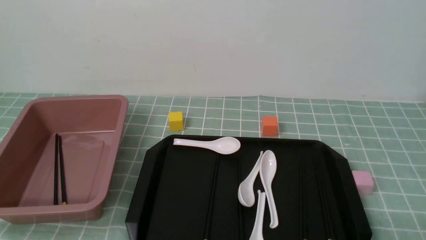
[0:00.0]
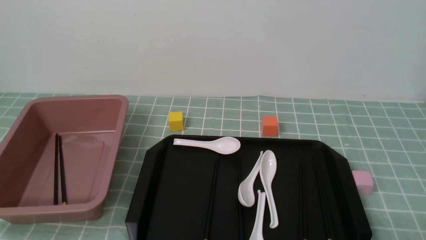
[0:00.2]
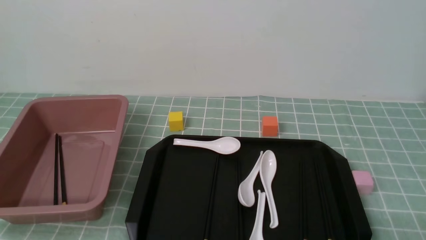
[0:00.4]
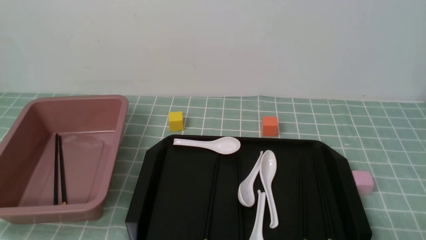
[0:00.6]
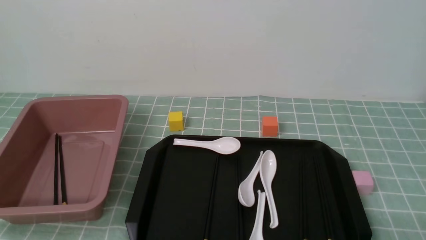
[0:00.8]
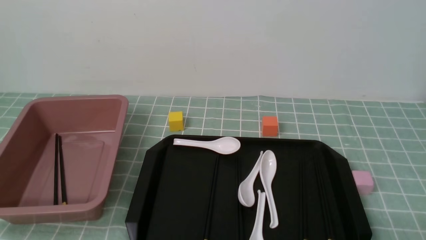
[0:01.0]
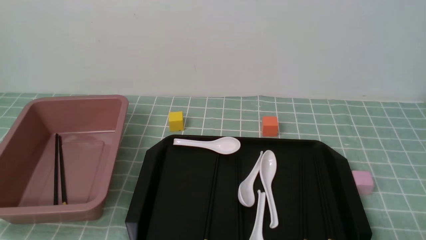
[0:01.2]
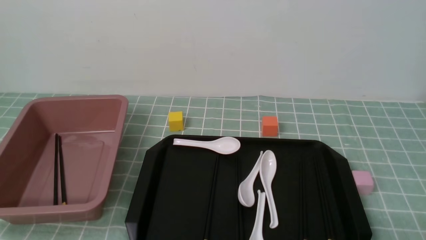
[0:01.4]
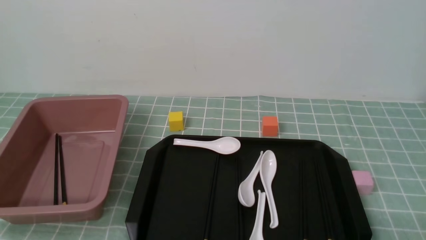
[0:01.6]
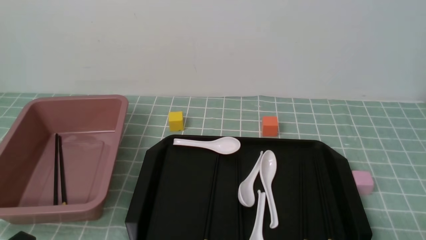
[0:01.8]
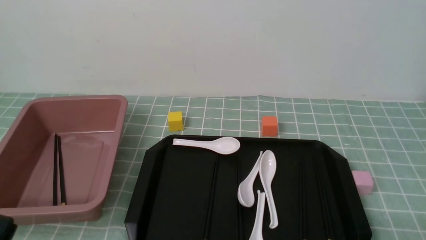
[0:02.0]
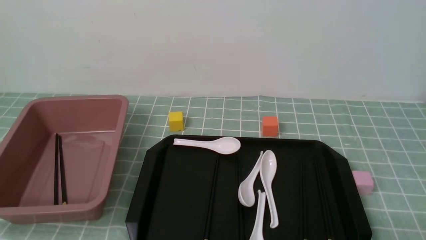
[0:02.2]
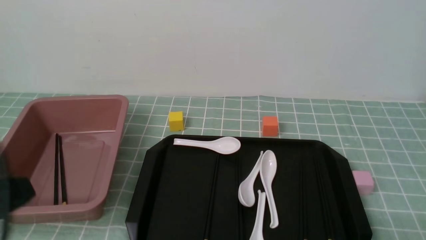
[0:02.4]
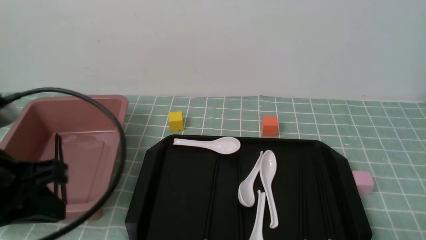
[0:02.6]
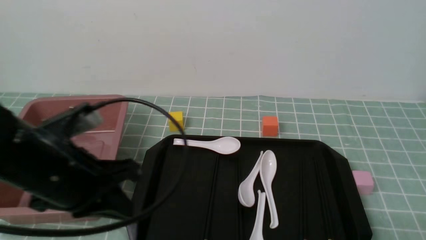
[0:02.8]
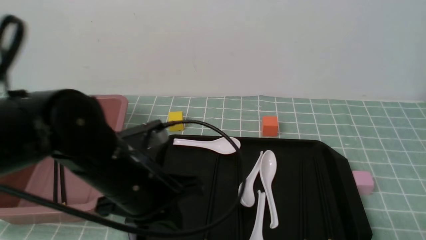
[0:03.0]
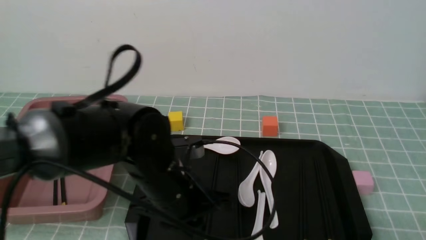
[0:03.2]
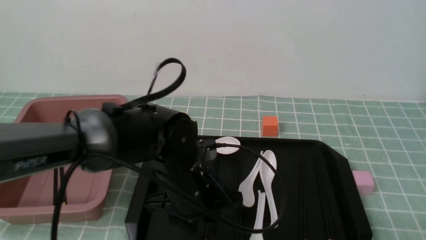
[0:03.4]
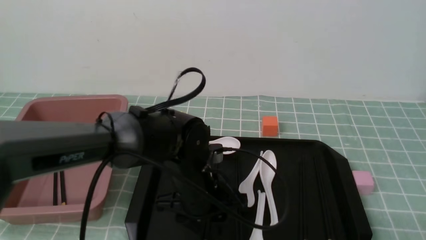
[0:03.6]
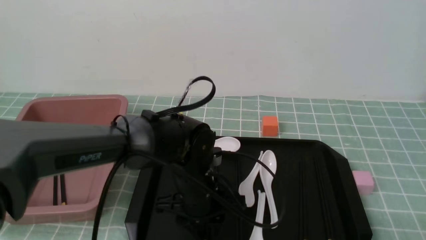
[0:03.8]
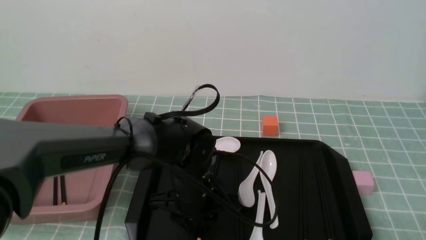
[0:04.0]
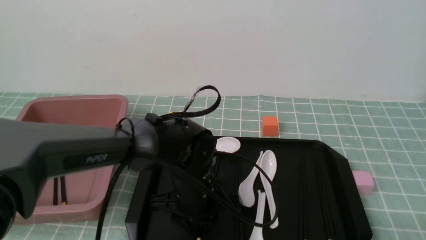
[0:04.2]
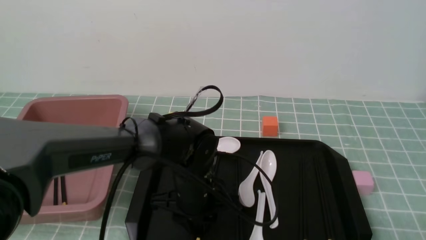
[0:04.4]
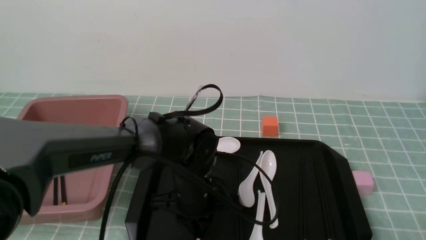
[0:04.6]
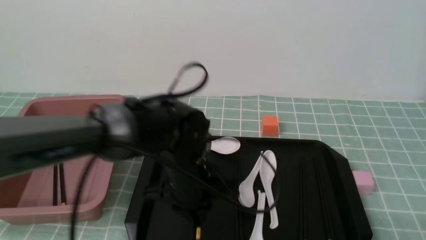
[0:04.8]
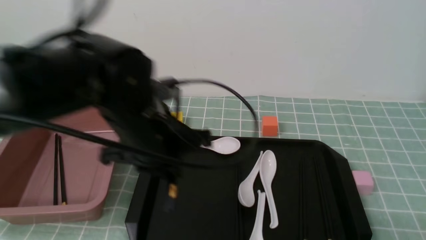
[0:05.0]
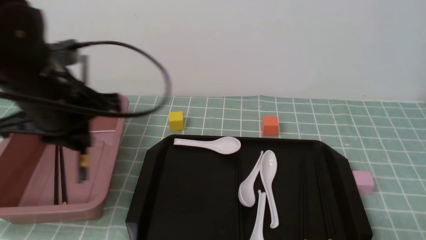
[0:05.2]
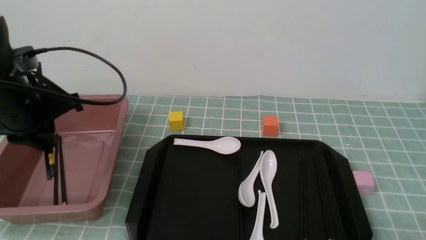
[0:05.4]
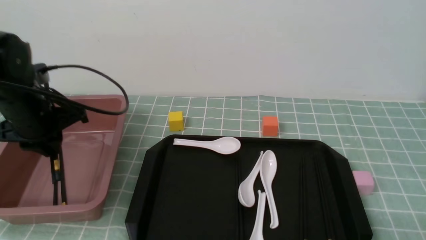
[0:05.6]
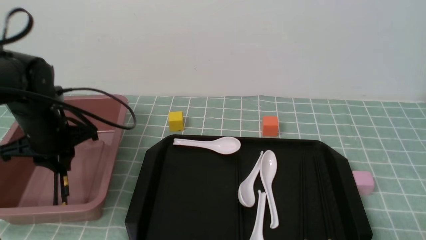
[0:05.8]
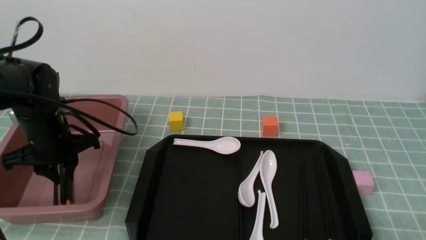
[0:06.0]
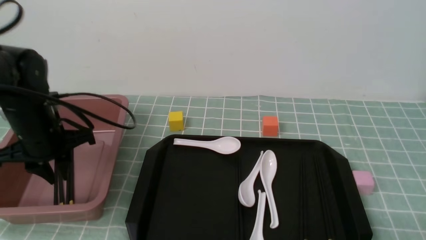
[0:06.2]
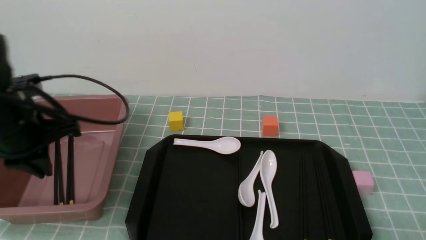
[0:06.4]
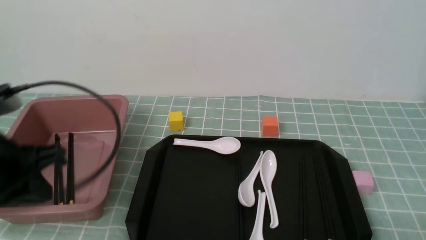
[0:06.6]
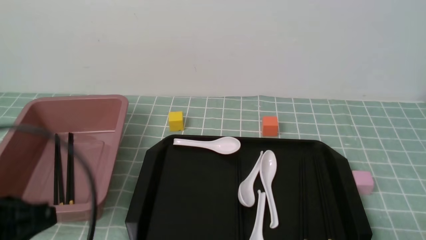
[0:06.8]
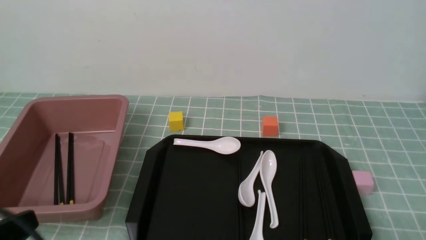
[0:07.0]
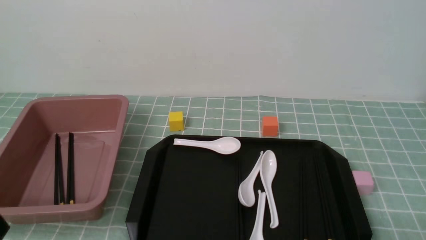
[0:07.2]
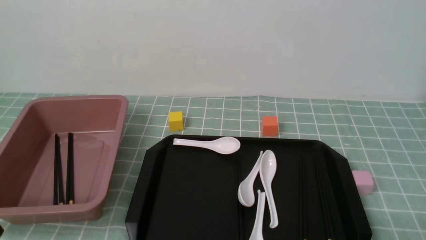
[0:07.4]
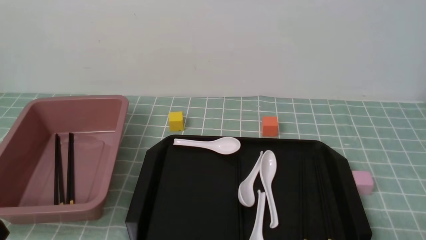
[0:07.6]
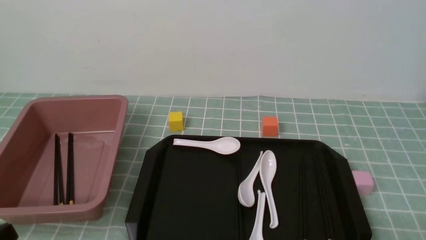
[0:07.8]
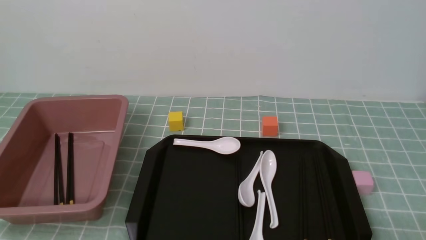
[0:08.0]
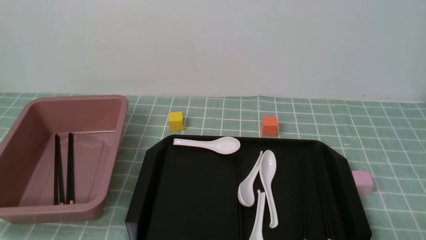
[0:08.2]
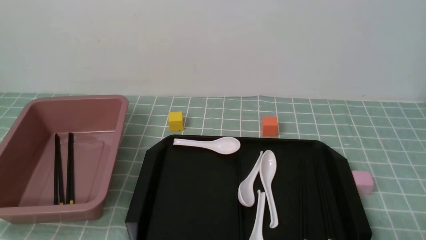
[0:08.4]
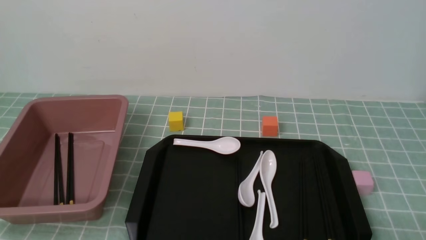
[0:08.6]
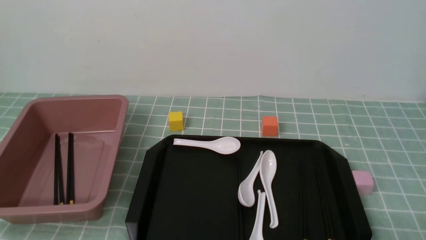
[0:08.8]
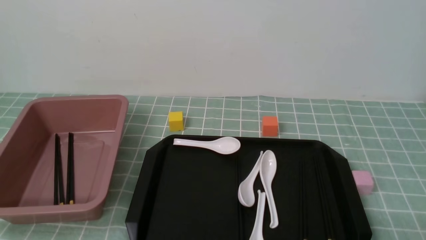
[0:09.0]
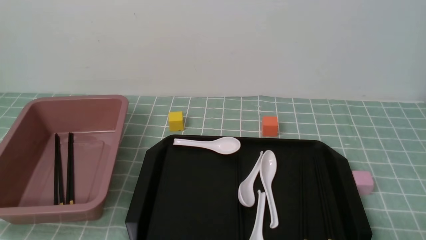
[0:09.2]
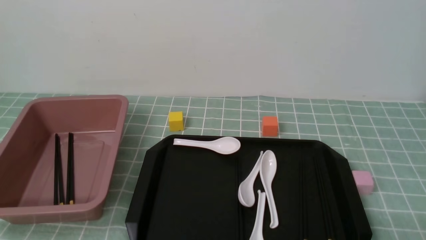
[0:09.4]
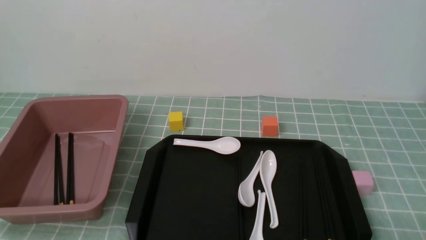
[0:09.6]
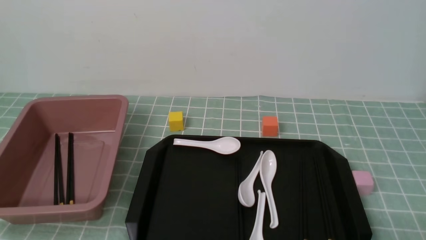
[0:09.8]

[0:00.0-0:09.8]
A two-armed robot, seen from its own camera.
Step, 0:00.0 to 0:04.8: use the left arm to grab a pair of chopsticks.
Step, 0:05.0 to 0:06.2: use the left arm to put the chopsticks into the lunch box.
0:00.0 to 0:01.4: The two grippers keep their place.
0:01.4 to 0:02.8: The left gripper is displaced forward, upward and to the right by about 20 cm.
0:02.8 to 0:04.2: The left gripper travels to the right, downward and forward by approximately 20 cm, and opens its fingers.
0:04.2 to 0:05.6: The left gripper heads to the left and upward, covering approximately 25 cm, and closes.
0:05.6 to 0:07.0: The left gripper goes approximately 25 cm backward, and closes up.
0:07.0 to 0:08.4: The left gripper is displaced downward by about 10 cm.
0:08.4 to 0:09.8: The two grippers keep their place.

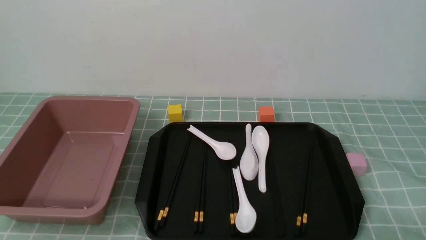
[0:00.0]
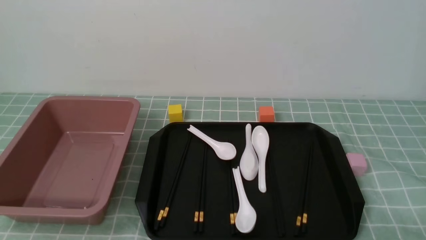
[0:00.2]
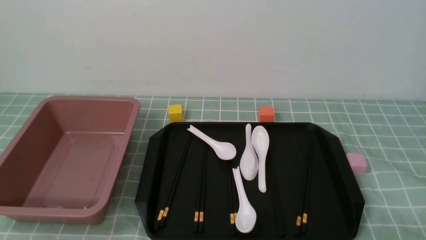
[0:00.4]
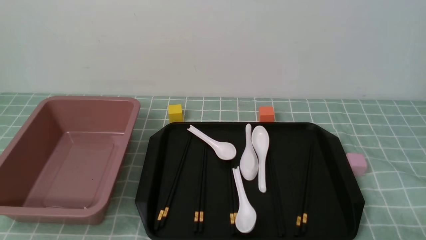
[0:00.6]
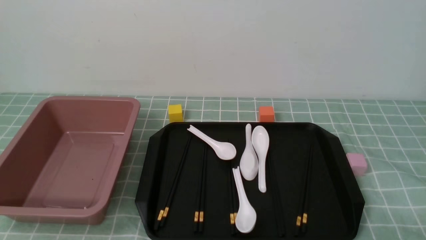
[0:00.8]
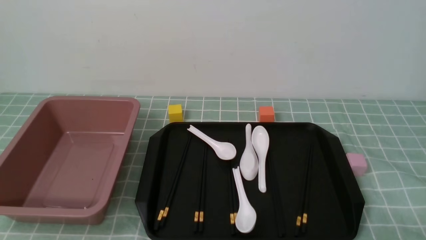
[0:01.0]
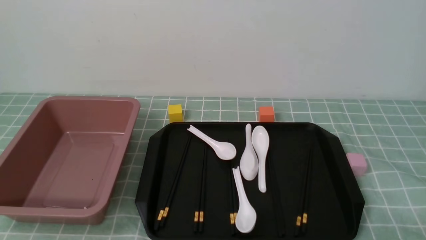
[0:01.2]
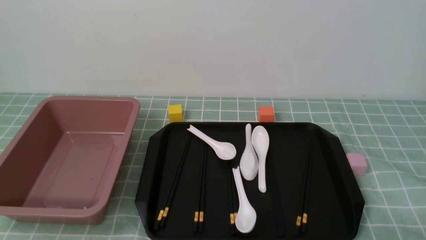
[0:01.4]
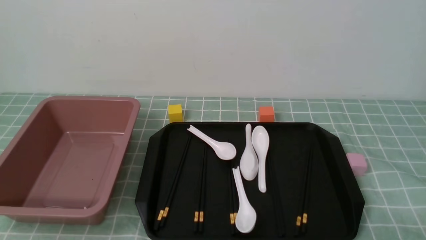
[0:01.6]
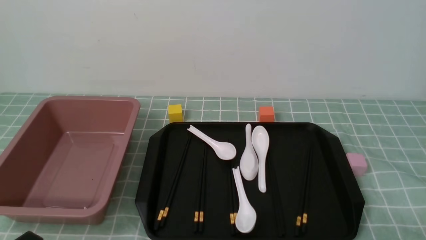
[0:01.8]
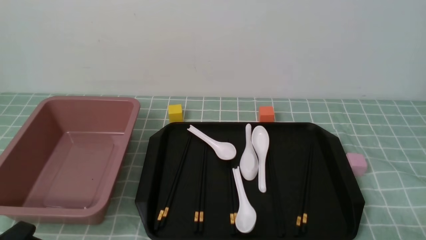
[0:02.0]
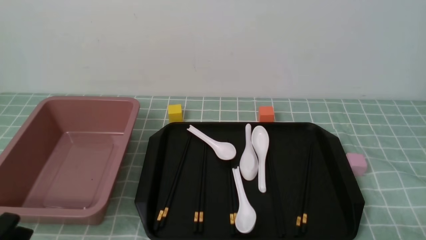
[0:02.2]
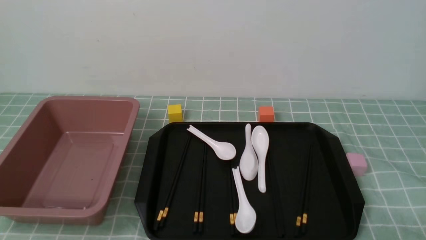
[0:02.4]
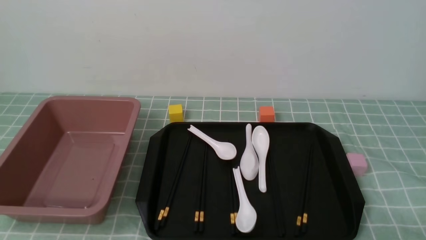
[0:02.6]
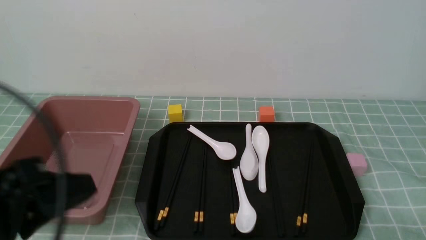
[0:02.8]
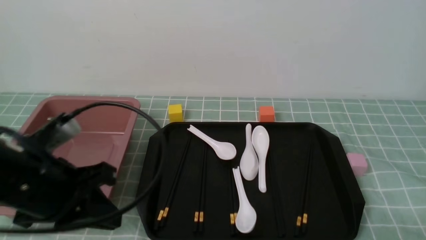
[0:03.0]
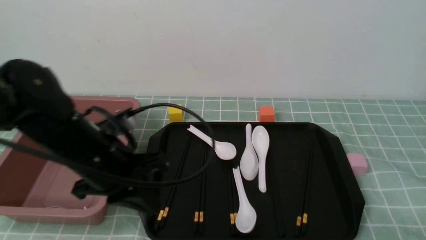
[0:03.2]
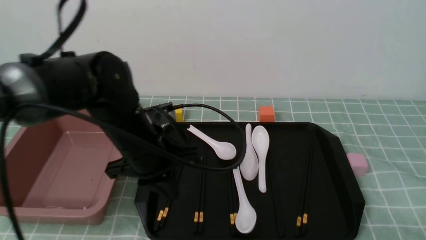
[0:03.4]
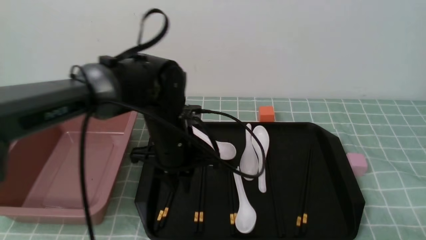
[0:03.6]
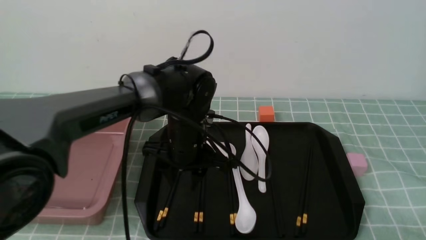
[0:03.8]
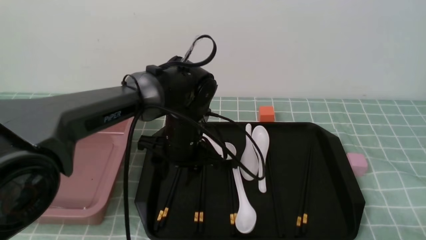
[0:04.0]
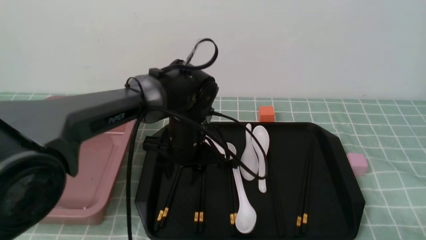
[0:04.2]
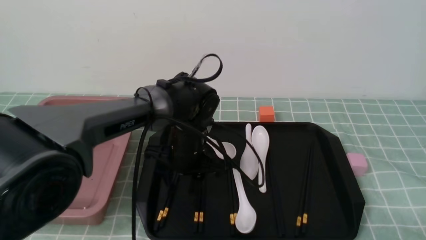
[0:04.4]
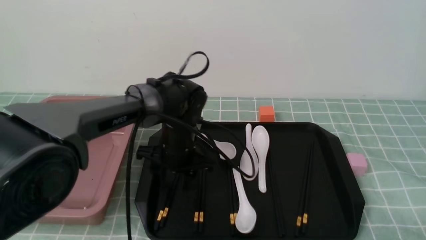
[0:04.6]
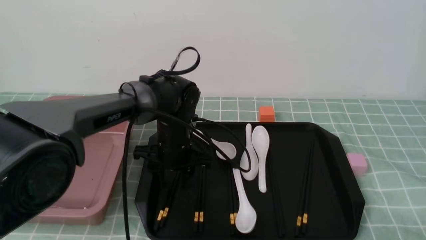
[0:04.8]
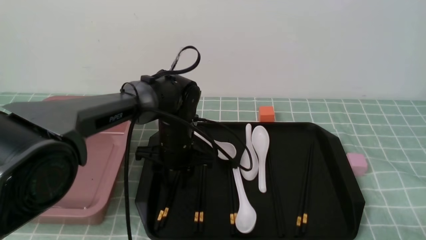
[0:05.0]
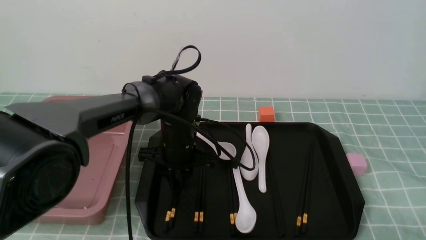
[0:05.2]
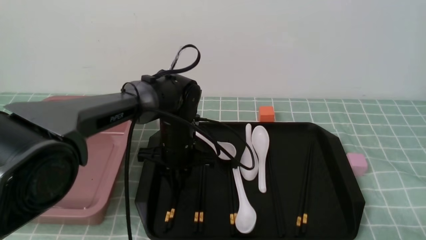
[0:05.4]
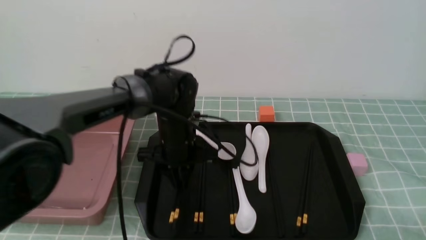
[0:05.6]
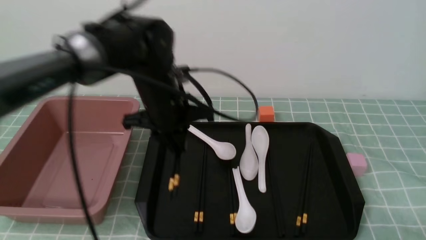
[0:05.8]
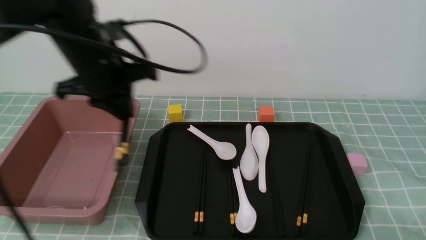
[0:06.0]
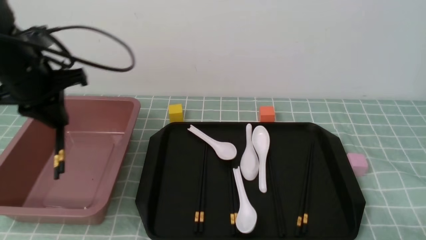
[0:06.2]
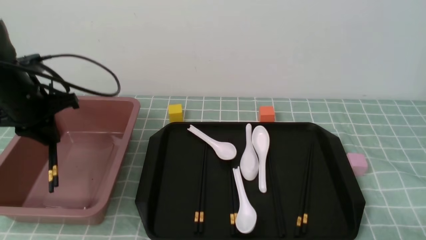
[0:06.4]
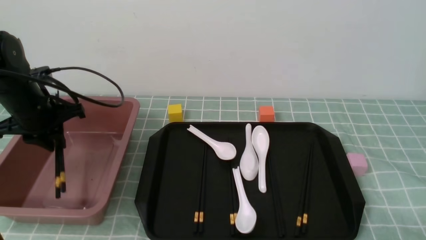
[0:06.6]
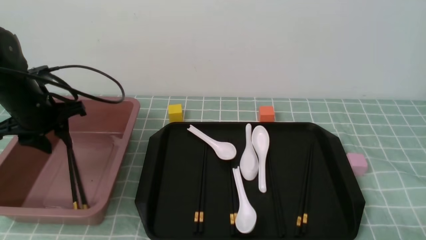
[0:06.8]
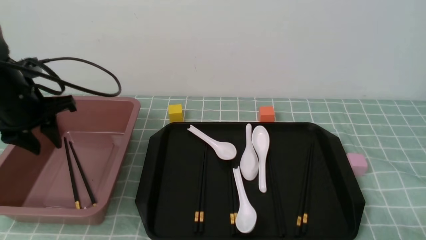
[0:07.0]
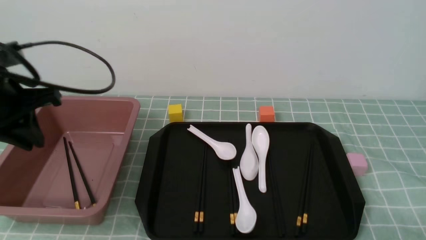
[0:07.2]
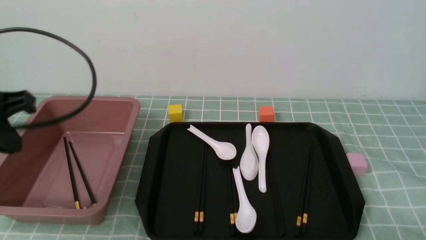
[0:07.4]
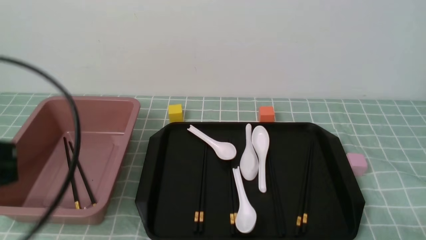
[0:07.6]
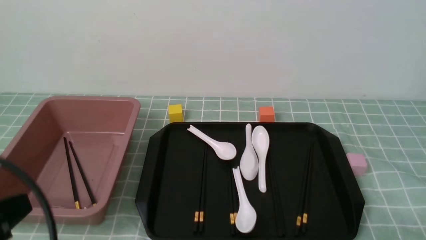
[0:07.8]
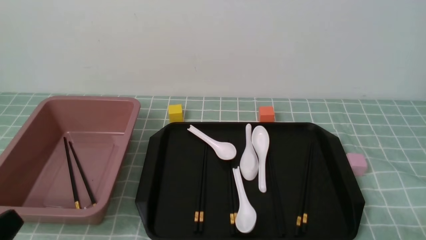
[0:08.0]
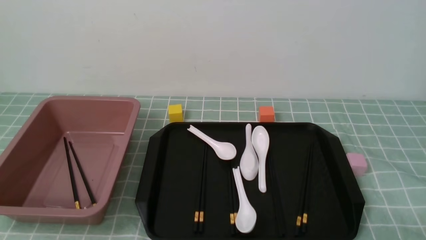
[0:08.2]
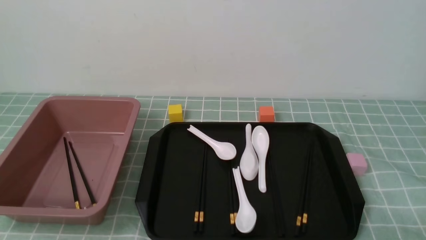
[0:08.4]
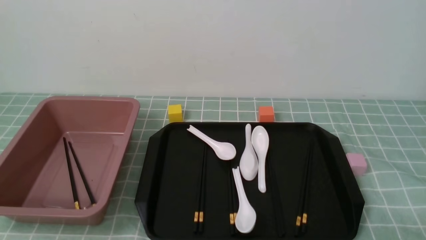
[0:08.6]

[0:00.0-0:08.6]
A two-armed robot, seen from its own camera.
Step, 0:00.0 to 0:05.8: use the left arm to grab a pair of chopsticks.
Step, 0:06.0 to 0:07.0: use the left arm to put the chopsticks into the lunch box.
0:00.0 to 0:01.4: Neither gripper changes place.
0:01.4 to 0:02.8: The left gripper is displaced upward and forward by about 15 cm, and closes.
0:02.8 to 0:04.4: The left gripper goes some 35 cm forward, to the right and downward, and opens up.
0:04.4 to 0:05.8: The left gripper heads upward and to the left, covering approximately 10 cm, and closes up.
0:05.8 to 0:07.2: The left gripper shifts approximately 20 cm to the left and backward, and opens, then closes once more.
0:07.2 to 0:08.6: The left gripper shifts roughly 25 cm backward and downward.
